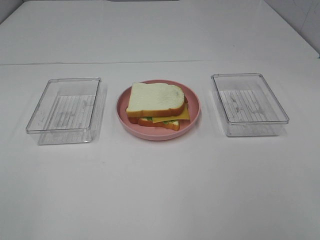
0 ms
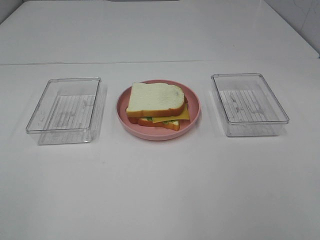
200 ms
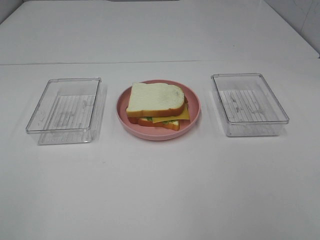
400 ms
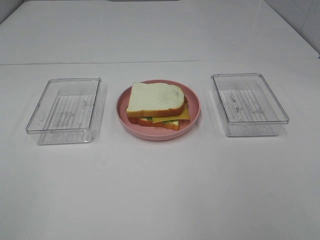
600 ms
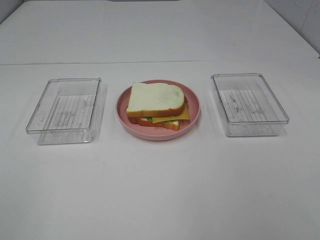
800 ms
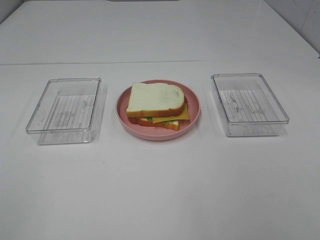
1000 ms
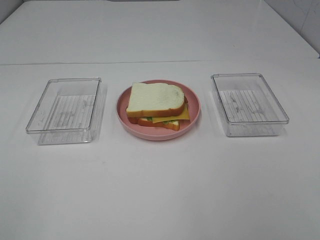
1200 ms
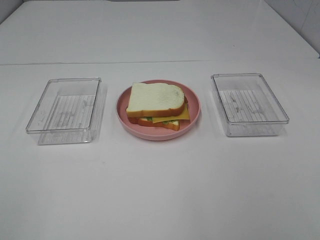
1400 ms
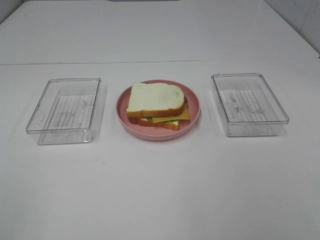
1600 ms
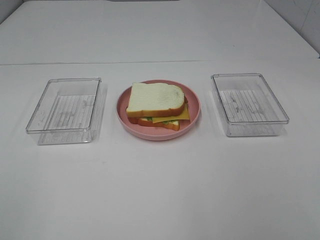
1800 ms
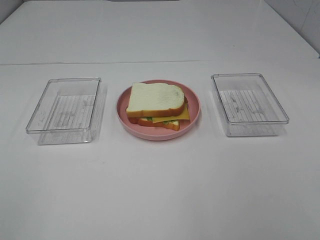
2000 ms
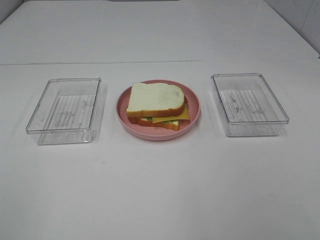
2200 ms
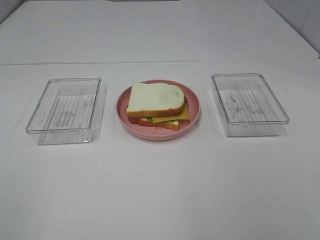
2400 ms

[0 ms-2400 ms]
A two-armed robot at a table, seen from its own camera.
Task of the whole recording: Make sandwiches.
1200 ms to 2400 ms: Both grippers stay put.

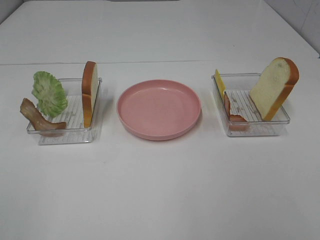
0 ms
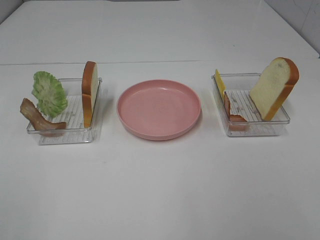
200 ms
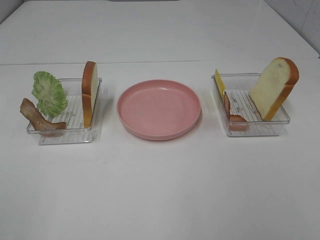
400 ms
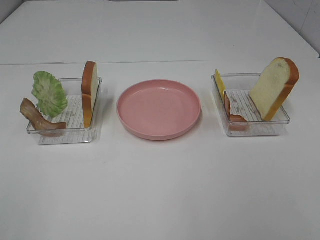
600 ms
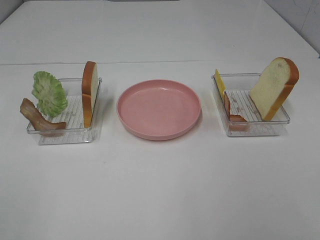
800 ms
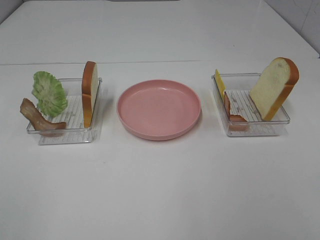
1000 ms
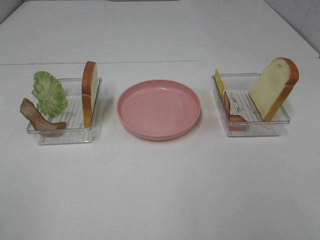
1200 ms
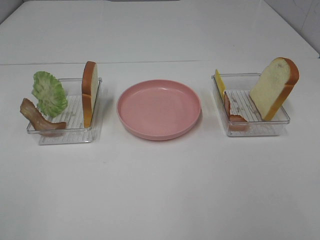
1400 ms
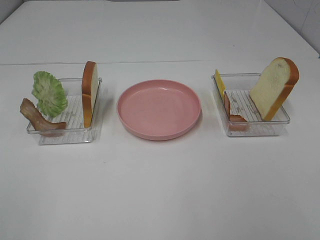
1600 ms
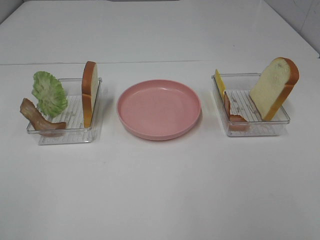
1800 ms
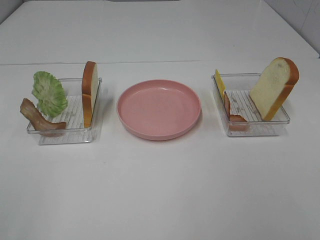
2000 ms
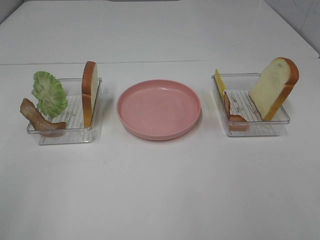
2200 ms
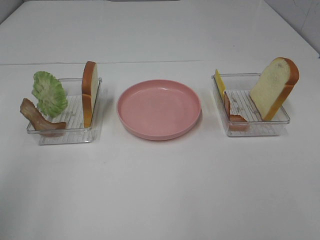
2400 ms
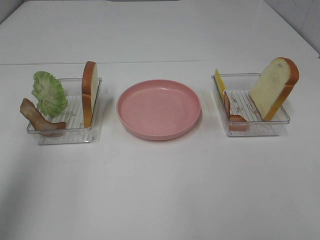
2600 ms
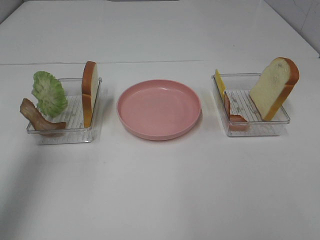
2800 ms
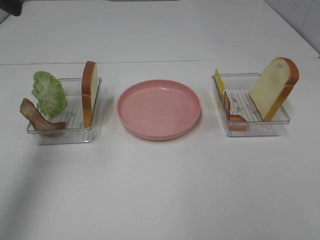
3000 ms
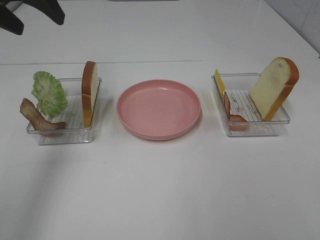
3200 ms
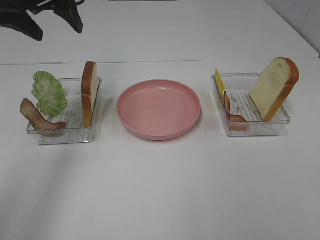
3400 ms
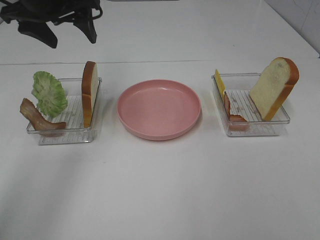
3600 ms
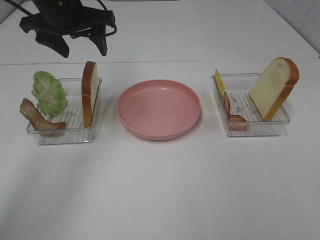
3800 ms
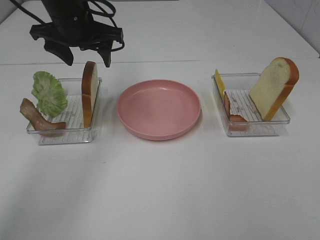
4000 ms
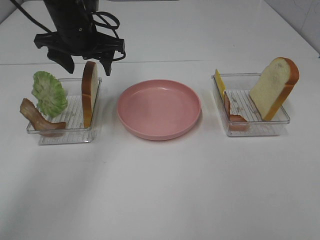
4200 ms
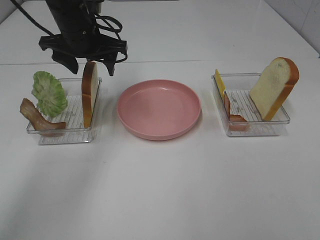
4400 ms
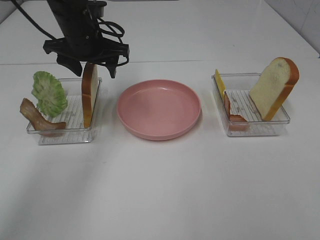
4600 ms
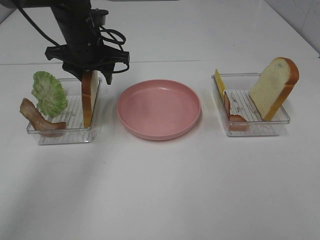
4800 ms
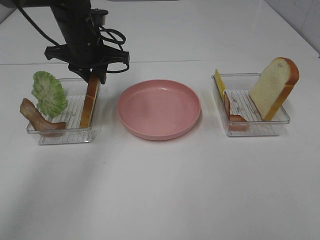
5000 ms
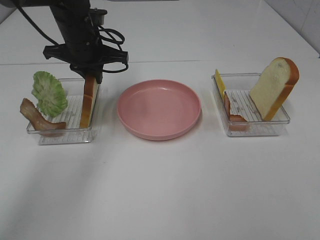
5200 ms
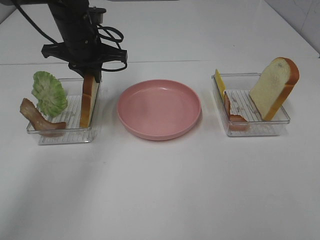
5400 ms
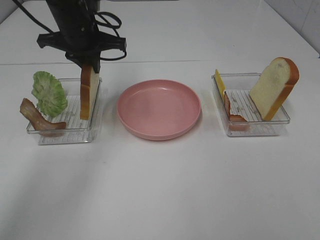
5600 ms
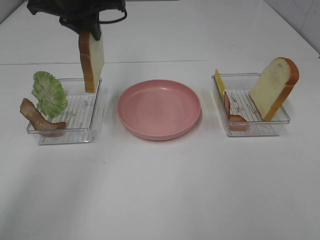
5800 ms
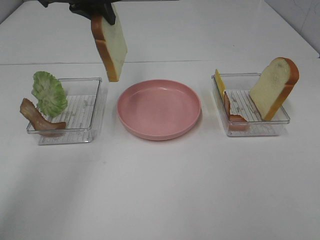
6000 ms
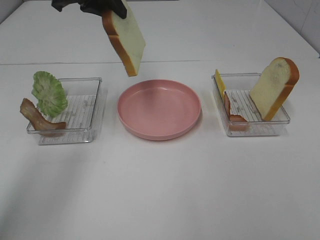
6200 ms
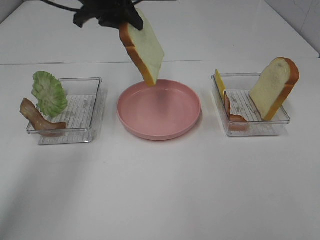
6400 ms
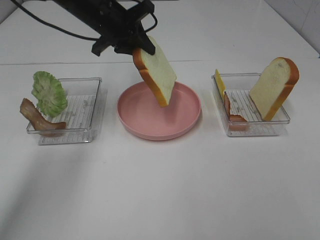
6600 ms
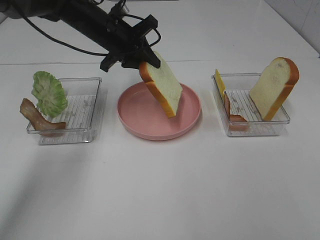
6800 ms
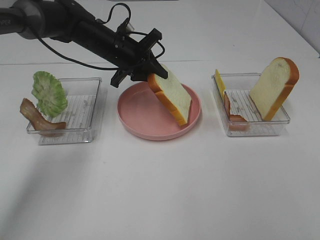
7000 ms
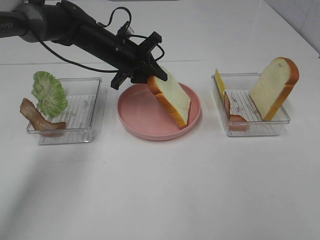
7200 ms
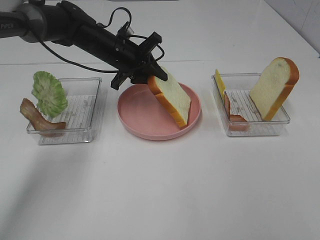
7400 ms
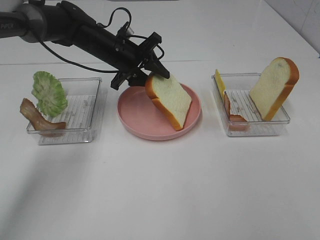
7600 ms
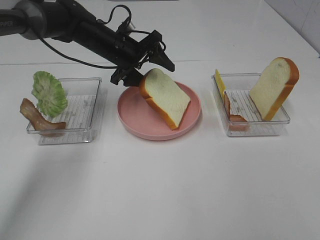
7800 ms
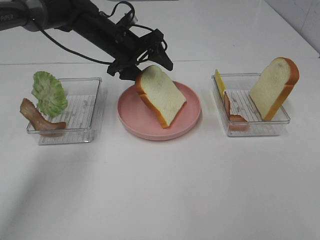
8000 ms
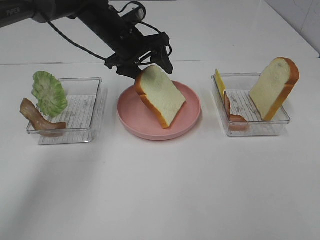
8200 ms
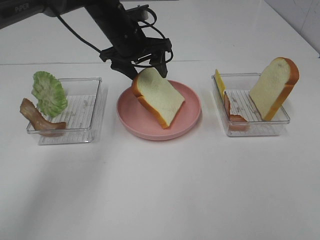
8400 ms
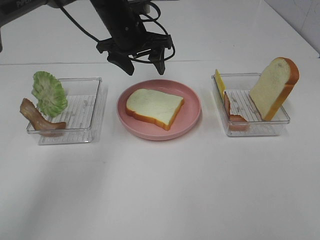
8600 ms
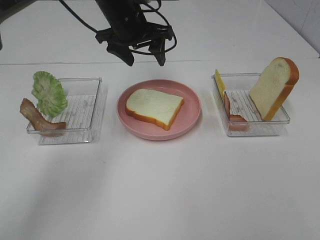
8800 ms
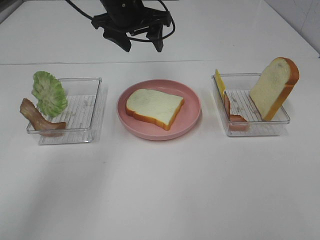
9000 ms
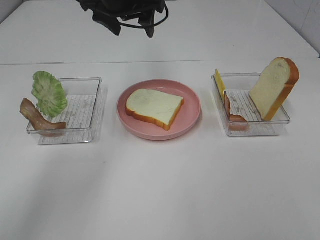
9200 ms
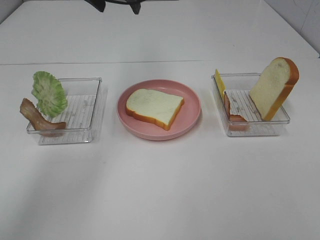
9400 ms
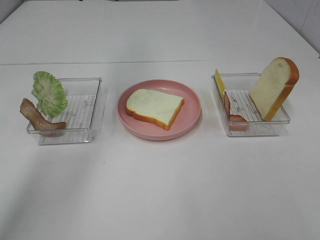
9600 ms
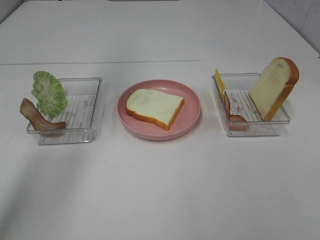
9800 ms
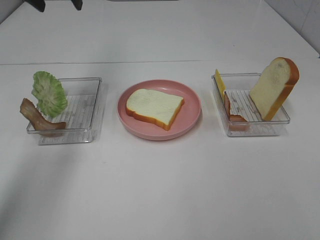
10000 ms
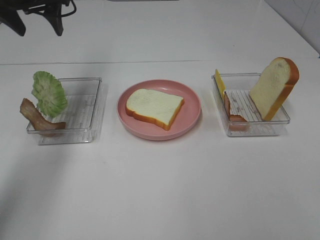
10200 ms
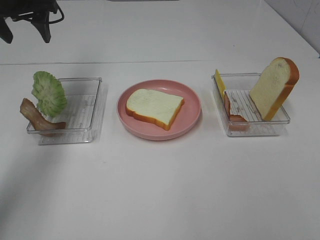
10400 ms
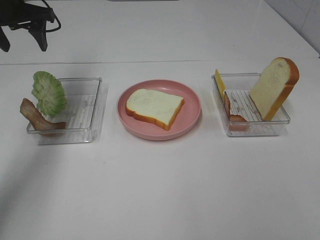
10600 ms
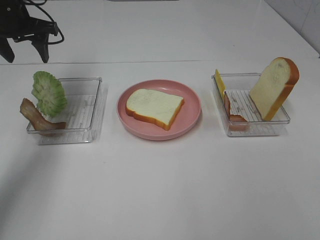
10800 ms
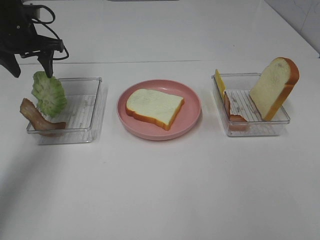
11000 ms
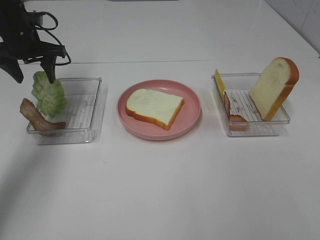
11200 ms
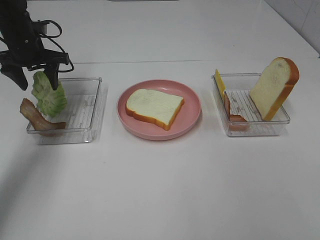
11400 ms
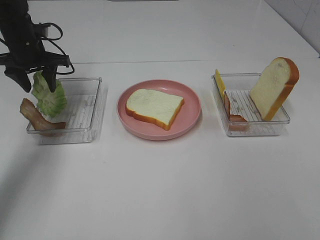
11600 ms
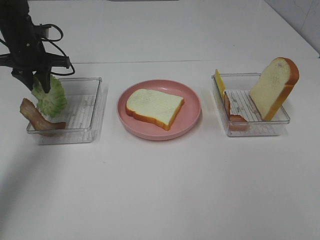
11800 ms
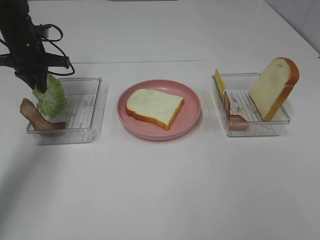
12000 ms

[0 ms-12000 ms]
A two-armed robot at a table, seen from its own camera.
Task of the whole recording: Make sandwiches.
Step, 0 ms to 5000 ms: Left hand:grab the bread slice.
Step, 5200 ms to 8600 ms: Left hand:place the bread slice on the plate.
0 ms to 1600 ms: The two grippers keep their place.
1600 ms to 3000 ms: The left gripper heads forward, covering roughly 30 cm.
3000 ms to 4400 ms: The left gripper shifts some 25 cm downward, forward and to the right.
4400 ms to 6000 ms: The left gripper shifts roughly 10 cm upward, and closes up.
6000 ms to 7600 ms: The left gripper travels downward by approximately 15 cm, and opens up.
7600 ms to 9000 ms: The left gripper shifts some 10 cm upward.
9000 ms to 10400 ms: The left gripper moves to the left, roughly 20 cm.
10400 ms to 12000 ms: The left gripper heads downward, covering about 10 cm, and closes.

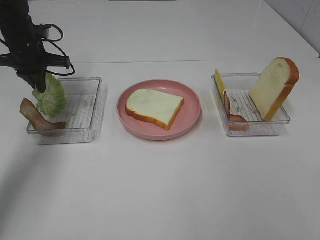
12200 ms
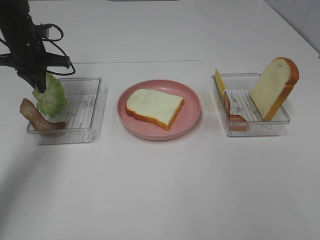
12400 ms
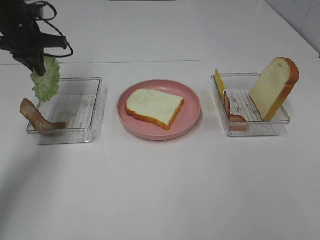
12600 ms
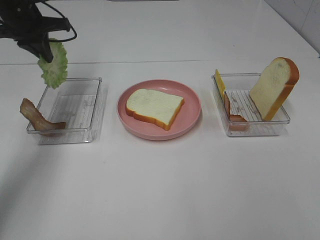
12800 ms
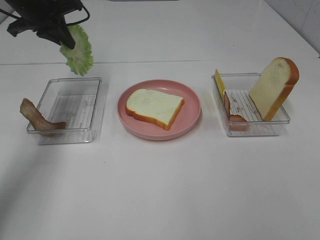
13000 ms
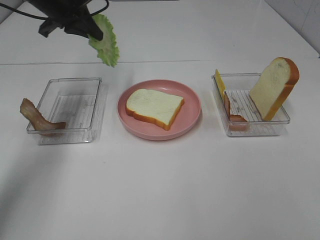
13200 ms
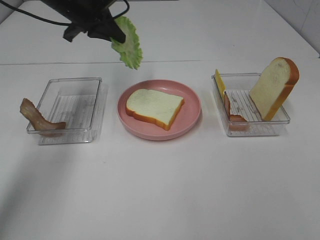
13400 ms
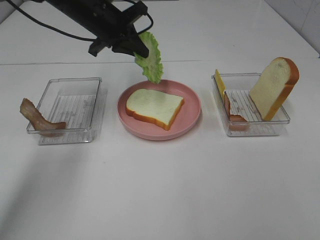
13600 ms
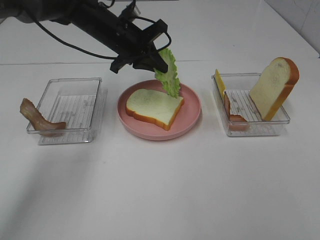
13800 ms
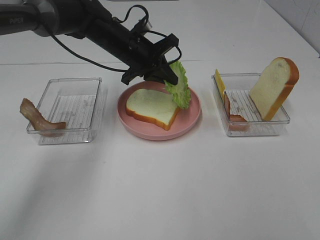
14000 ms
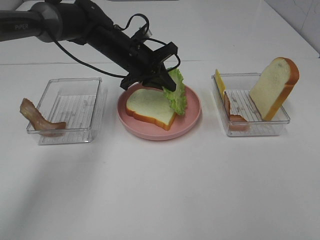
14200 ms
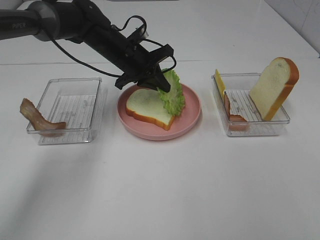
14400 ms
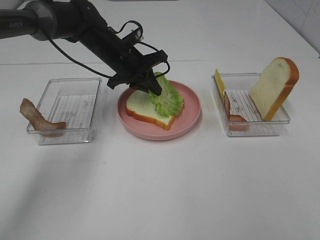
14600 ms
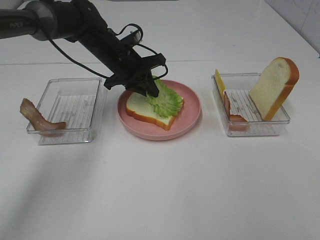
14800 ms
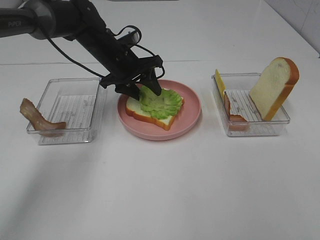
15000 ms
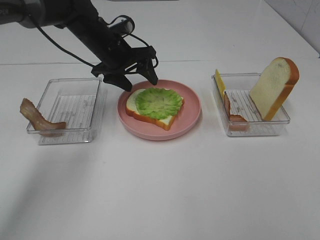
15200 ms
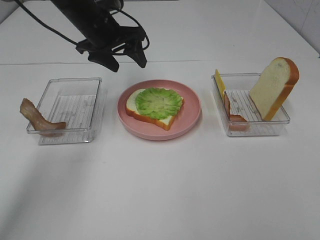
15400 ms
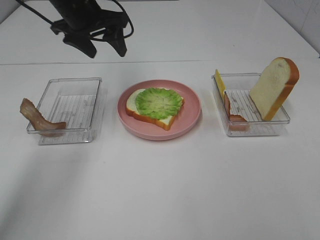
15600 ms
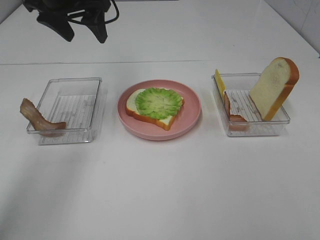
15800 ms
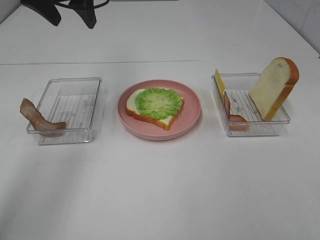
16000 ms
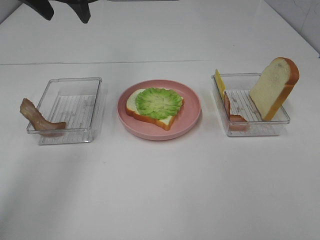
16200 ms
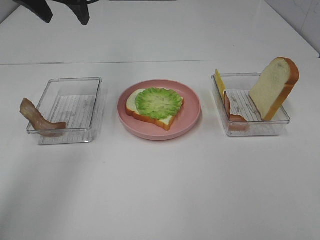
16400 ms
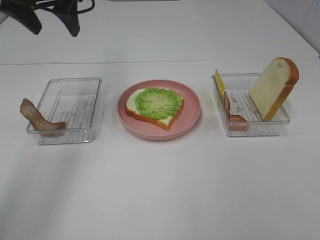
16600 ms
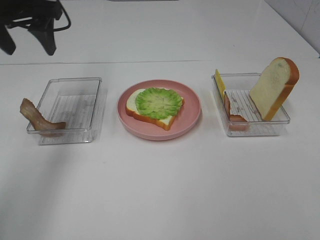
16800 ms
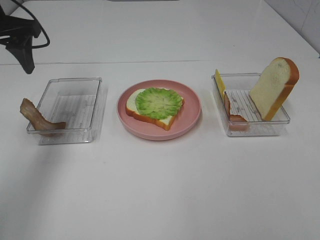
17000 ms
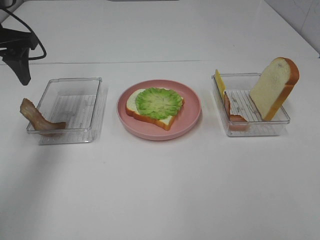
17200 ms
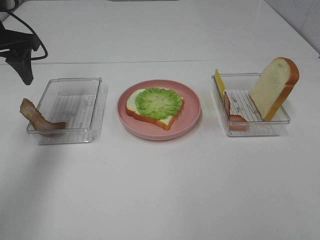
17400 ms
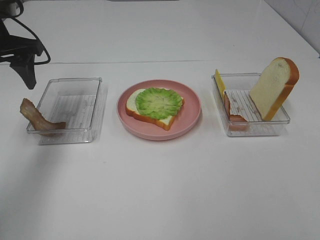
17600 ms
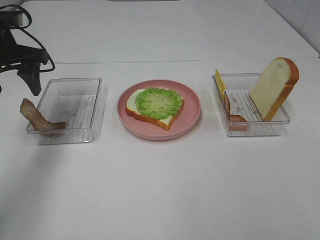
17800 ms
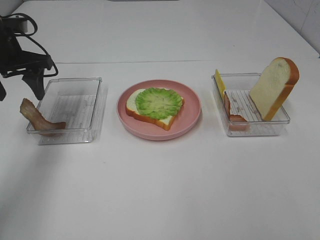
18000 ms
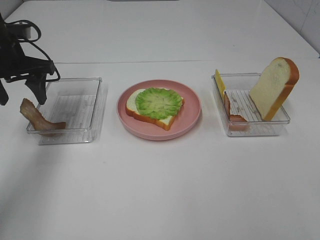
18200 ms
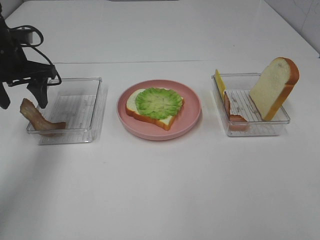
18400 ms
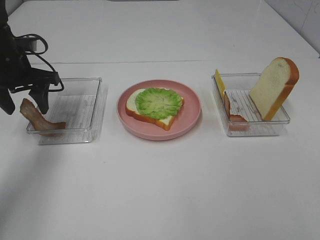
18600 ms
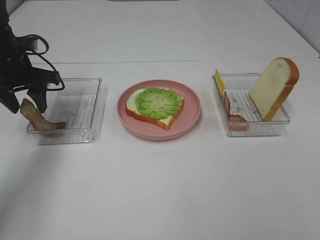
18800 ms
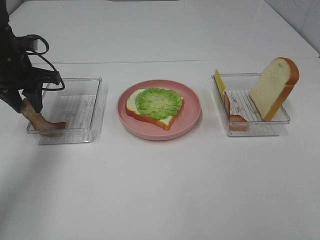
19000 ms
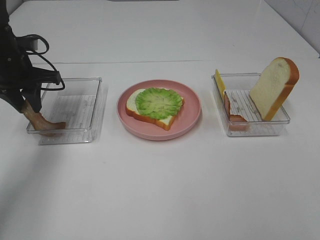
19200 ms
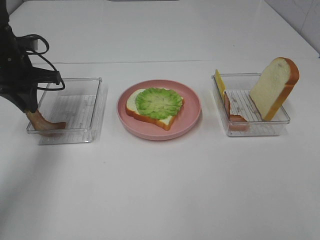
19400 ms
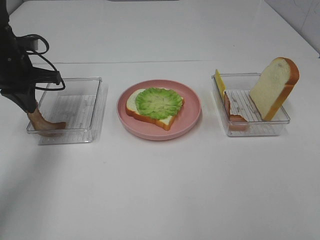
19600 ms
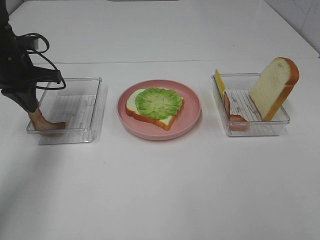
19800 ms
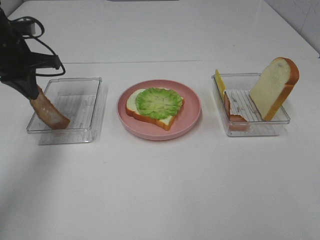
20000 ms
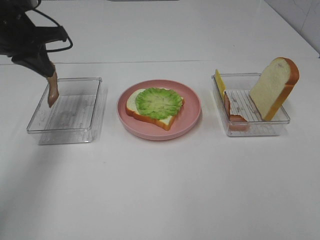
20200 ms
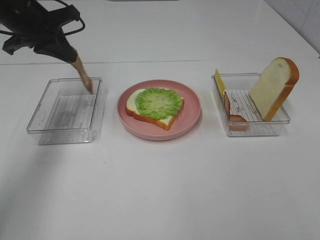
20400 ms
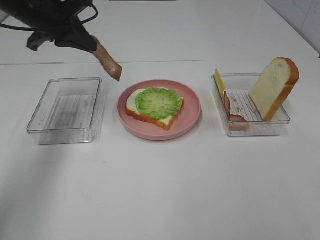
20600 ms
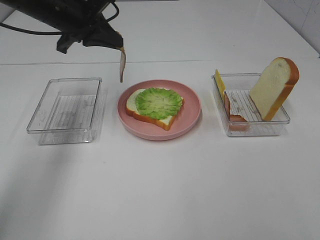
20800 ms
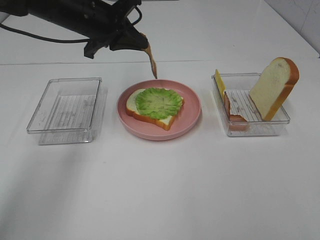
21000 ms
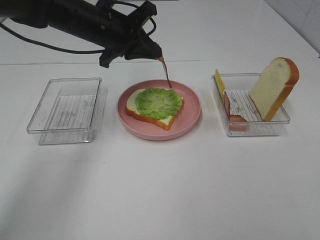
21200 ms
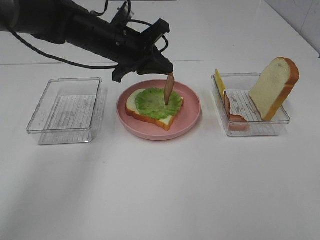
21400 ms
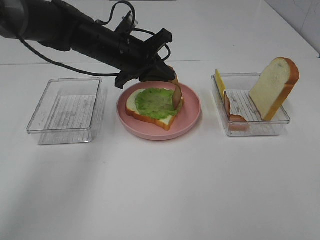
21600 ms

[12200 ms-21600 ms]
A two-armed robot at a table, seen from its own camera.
Task of the whole recording: Make sandwiches.
Step, 12400 ms to 15200 ms: Left hand:place the lettuce slice on the bread slice.
Step, 15400 ms to 19600 ms: Left hand:grab the bacon.
12200 ms to 13800 ms: The left gripper heads to the right, covering approximately 20 cm.
13800 ms to 15400 ms: The left gripper ends up approximately 5 cm from where it was, and opens up.
15400 ms to 17000 ms: The left gripper travels to the left, backward and upward by about 20 cm.
17000 ms to 18400 ms: The left gripper goes about 10 cm downward.
18400 ms to 20000 ms: The left gripper closes up.
20000 ms to 21600 ms: The left gripper goes roughly 20 cm to the right.
